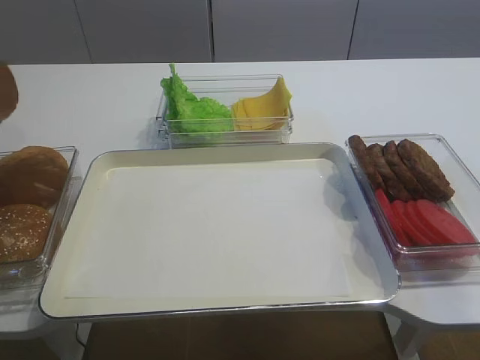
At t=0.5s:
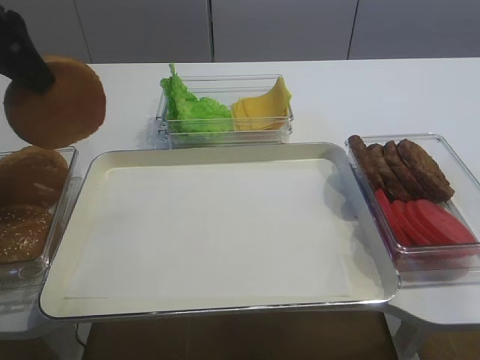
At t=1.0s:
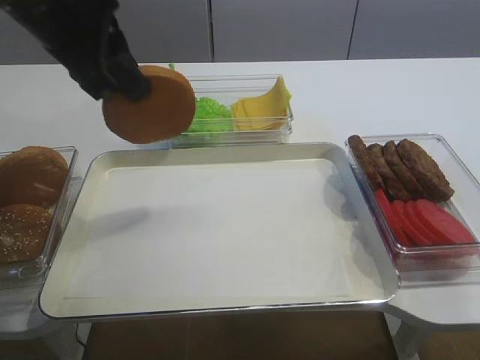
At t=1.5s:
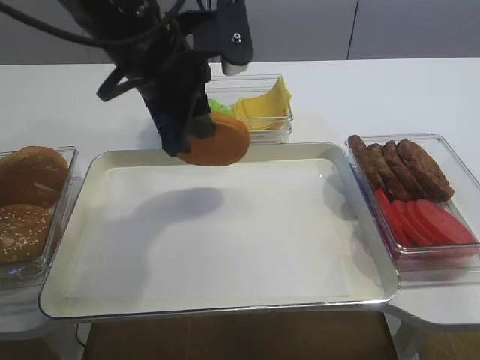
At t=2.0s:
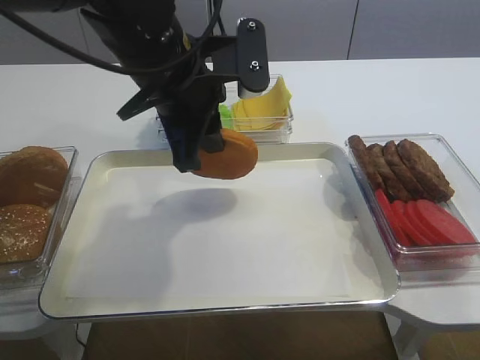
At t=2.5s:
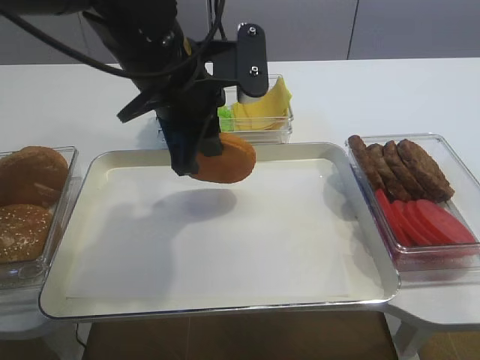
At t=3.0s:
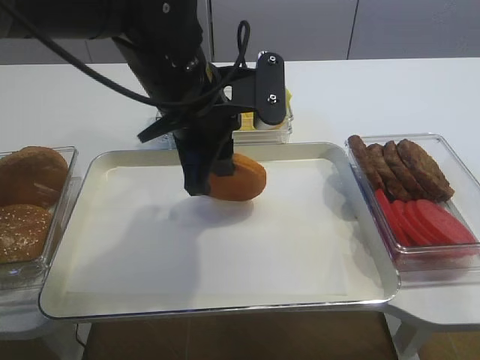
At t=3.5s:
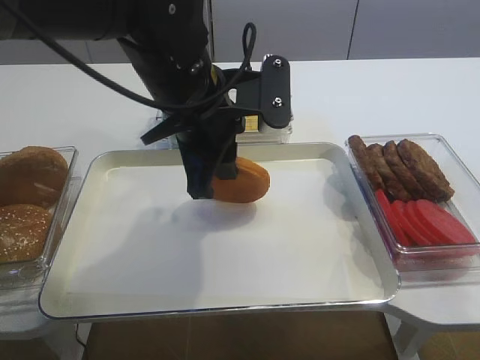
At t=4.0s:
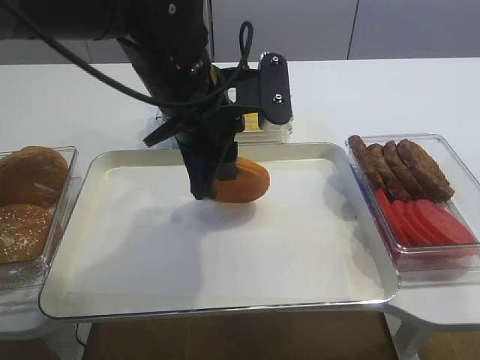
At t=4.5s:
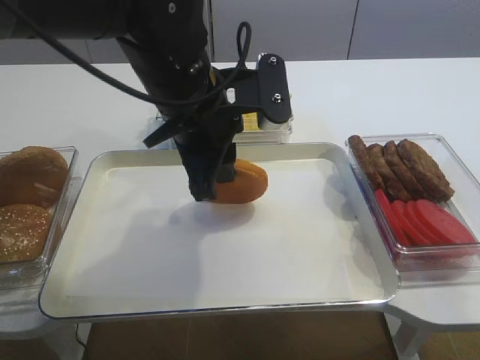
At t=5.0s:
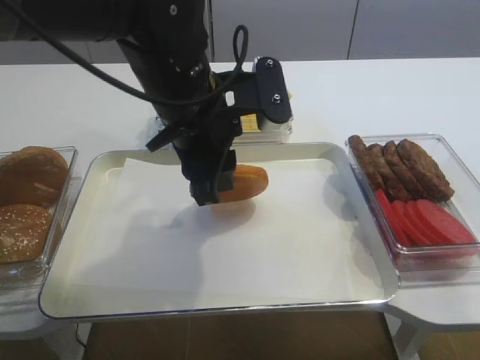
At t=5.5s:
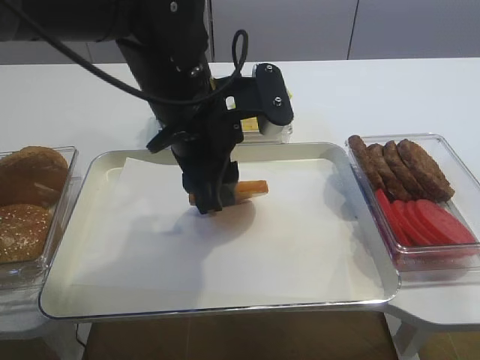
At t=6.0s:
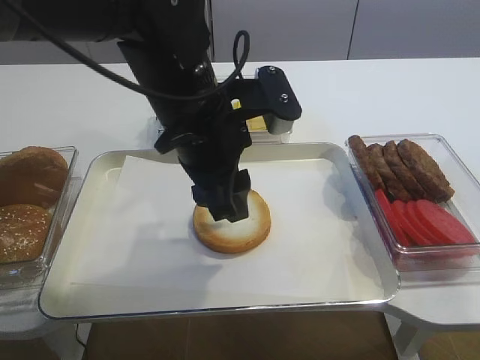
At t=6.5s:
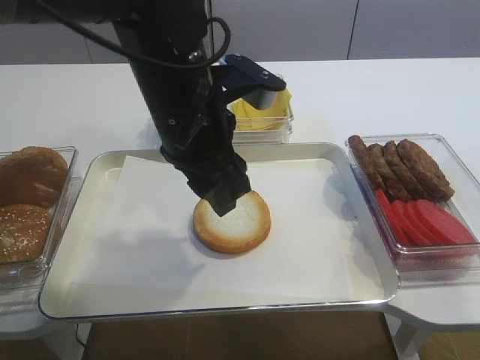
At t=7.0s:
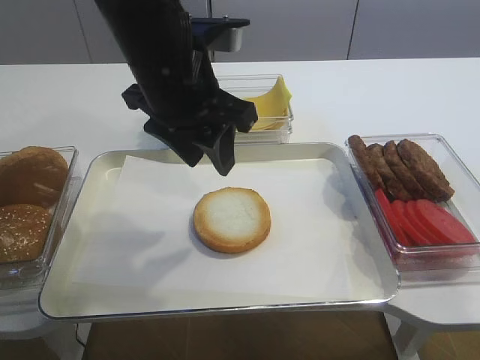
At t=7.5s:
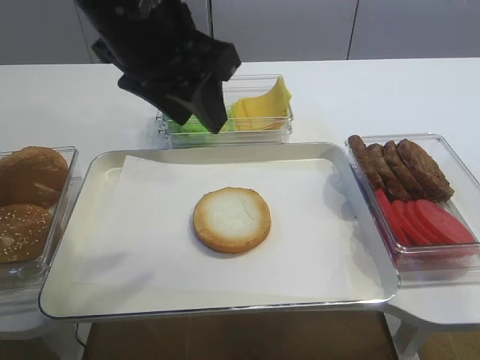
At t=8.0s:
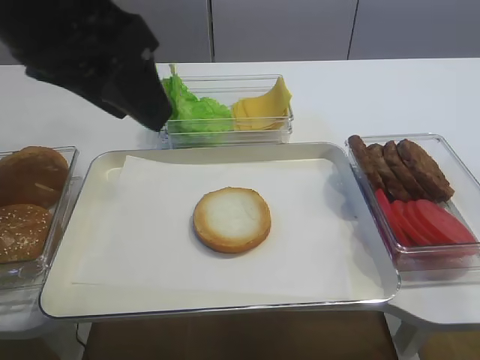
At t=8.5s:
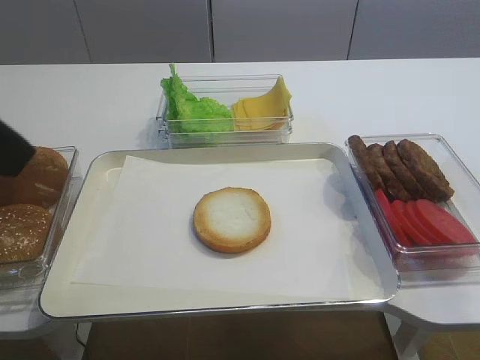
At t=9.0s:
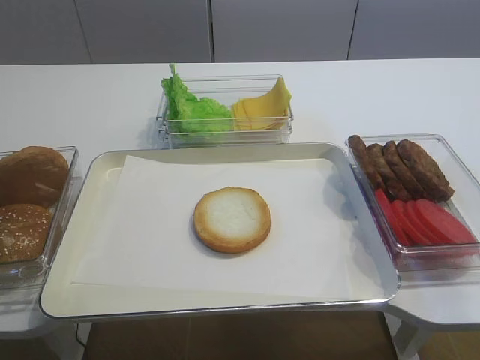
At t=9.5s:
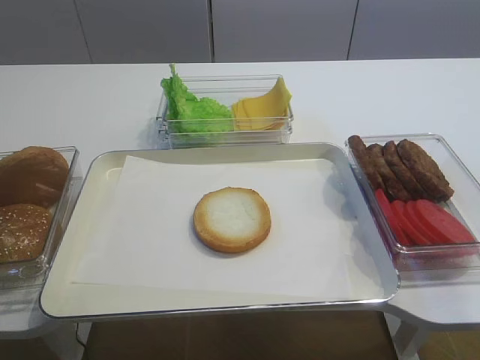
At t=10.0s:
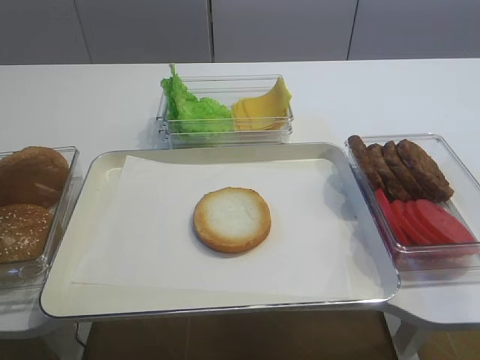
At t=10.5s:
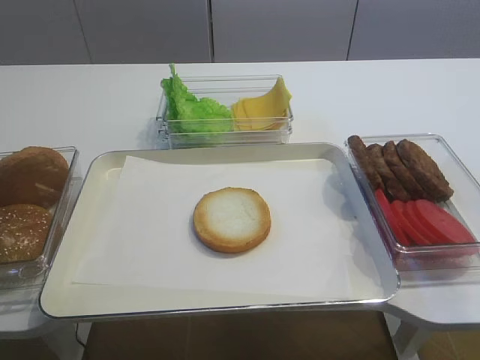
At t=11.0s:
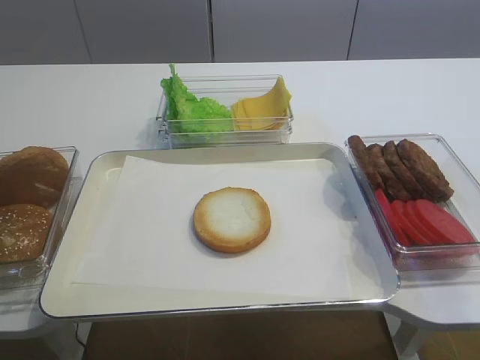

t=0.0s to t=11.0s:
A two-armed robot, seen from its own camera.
Step, t=0.0s to t=6.0s: Place the bread slice on the tray with the left gripper.
t=0.0s to t=2.0s: The left gripper heads to the right, covering approximately 25 cm.
t=2.0s to t=3.5s: The grippers make only small movements.
t=3.5s to t=5.5s: The left gripper opens.
t=5.5s to t=7.5s: The left gripper shifts some 10 cm upward.
t=7.5s to t=9.0s: The left gripper moves backward and to the left, about 30 cm.

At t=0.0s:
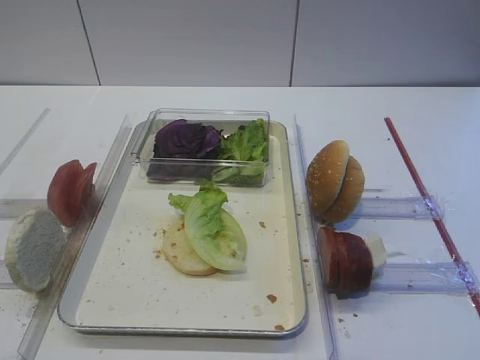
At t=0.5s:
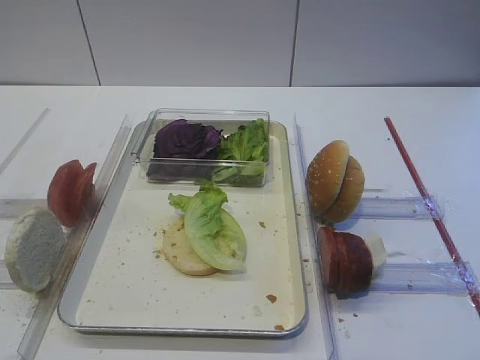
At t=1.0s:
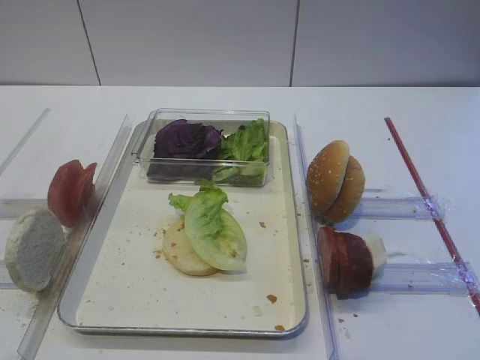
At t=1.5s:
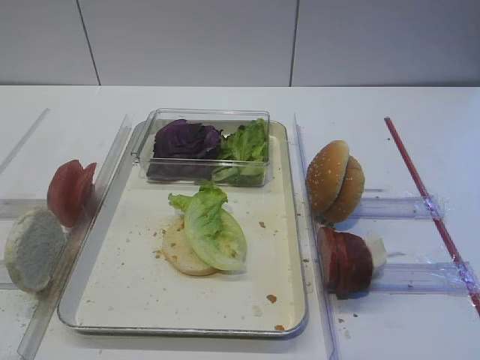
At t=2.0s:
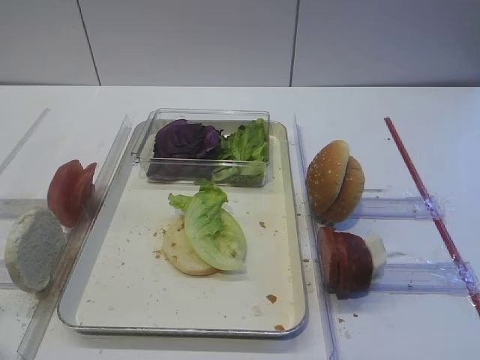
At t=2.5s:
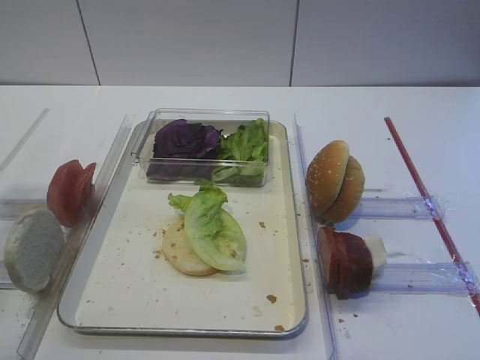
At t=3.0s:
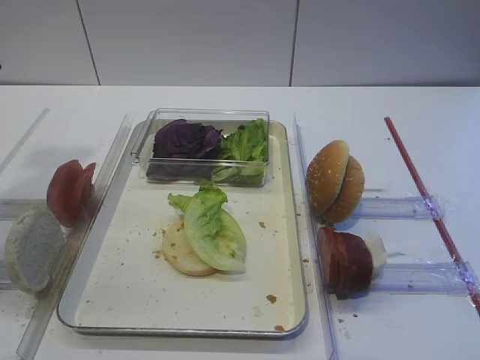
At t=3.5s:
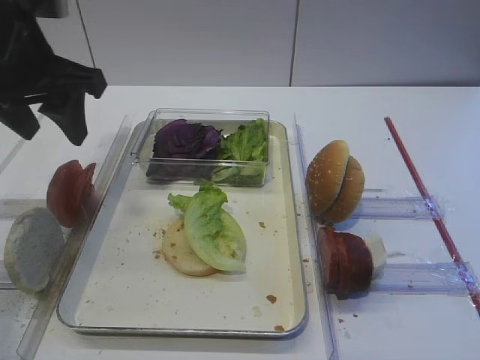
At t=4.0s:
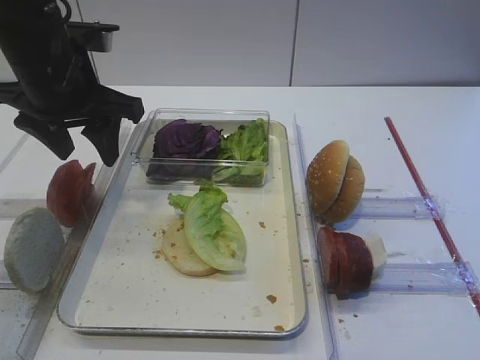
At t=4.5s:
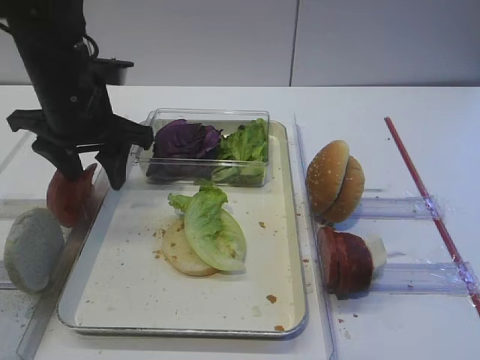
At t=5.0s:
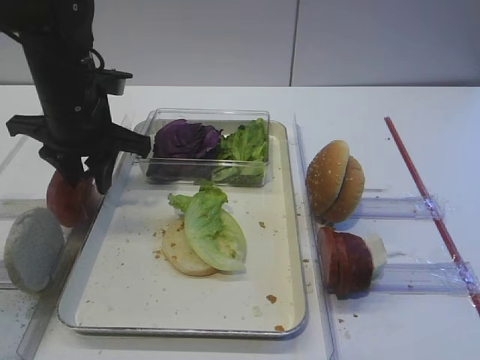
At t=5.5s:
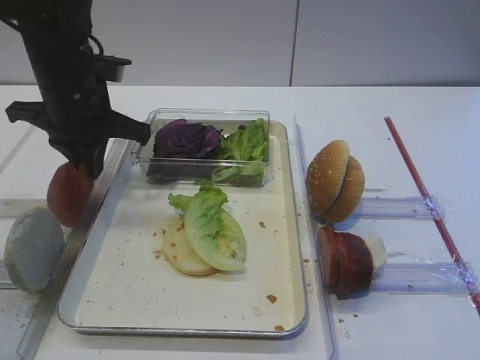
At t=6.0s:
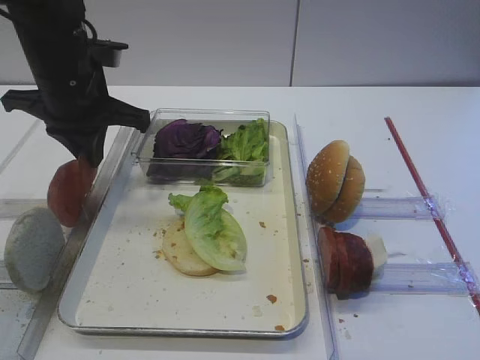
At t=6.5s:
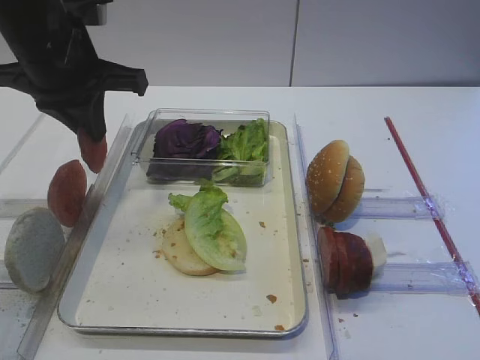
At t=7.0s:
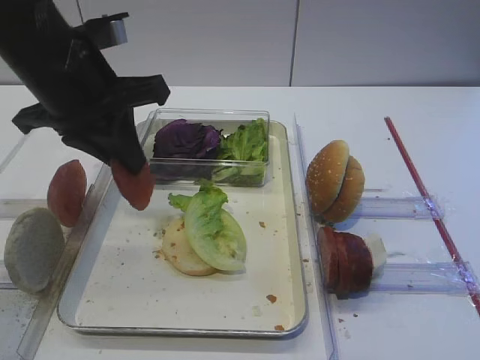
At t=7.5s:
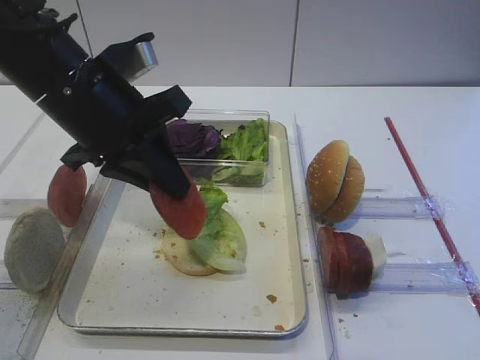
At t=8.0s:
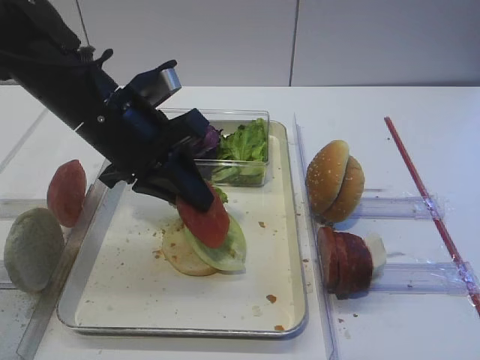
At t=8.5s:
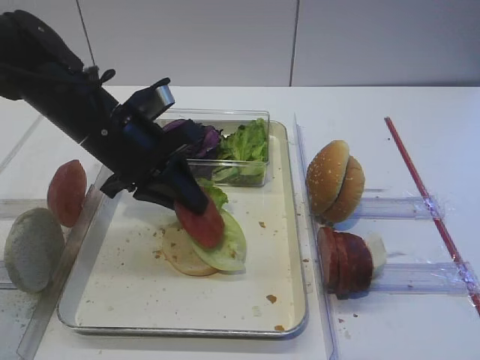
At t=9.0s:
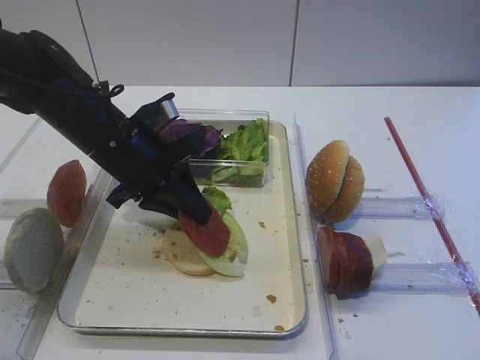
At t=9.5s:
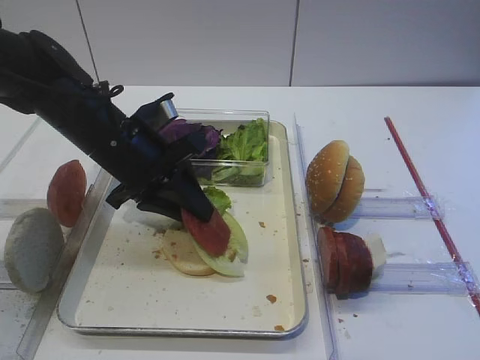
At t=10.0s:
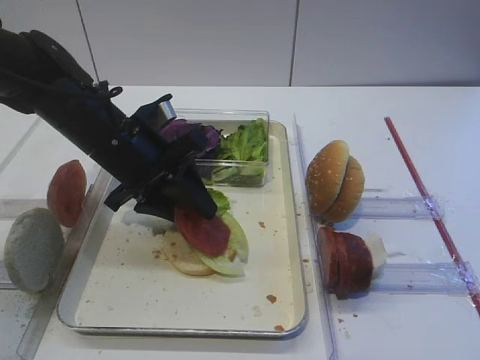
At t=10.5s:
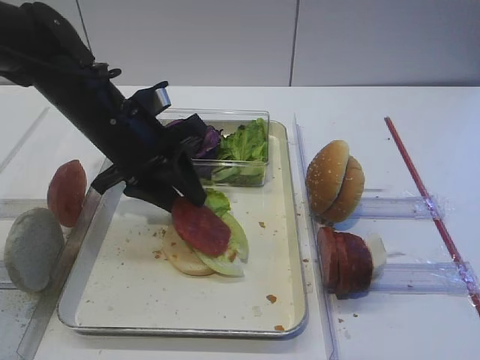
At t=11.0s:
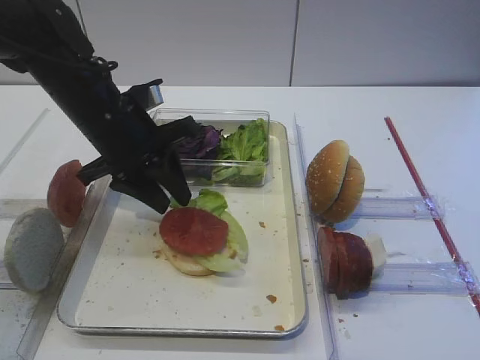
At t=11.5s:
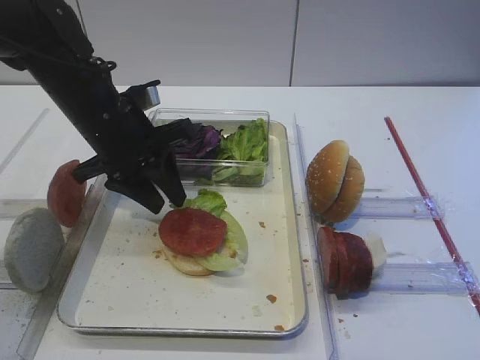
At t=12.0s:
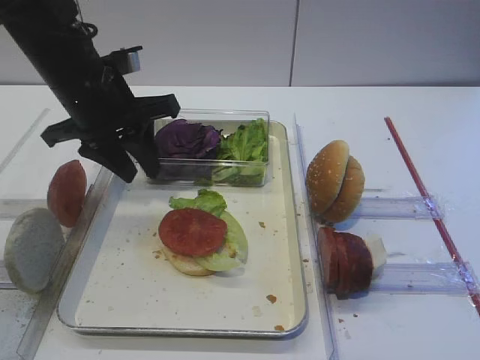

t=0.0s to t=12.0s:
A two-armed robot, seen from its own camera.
Step, t=0.0s to t=6.0s: Pick up the tomato slice with the left gripper.
Step, t=6.5s to t=11.0s: Place the tomato slice on the lettuce leaf with the left gripper.
t=2.0s to t=4.0s: The left gripper travels forward by some 30 cm.
t=4.0s to t=6.0s: The left gripper closes up.
t=6.0s to t=8.0s: The left gripper travels backward and to the right by some 10 cm.
t=8.0s to t=10.0s: The left gripper changes place by roughly 5 cm, and opens up.
t=10.0s to t=12.0s: The left gripper moves upward, some 5 cm.

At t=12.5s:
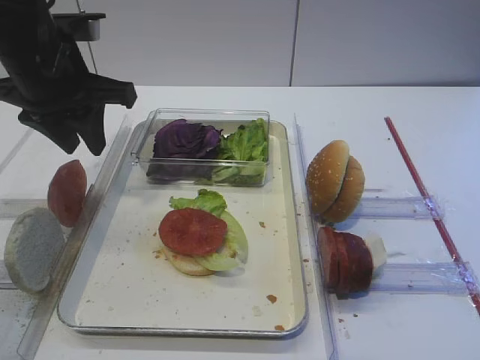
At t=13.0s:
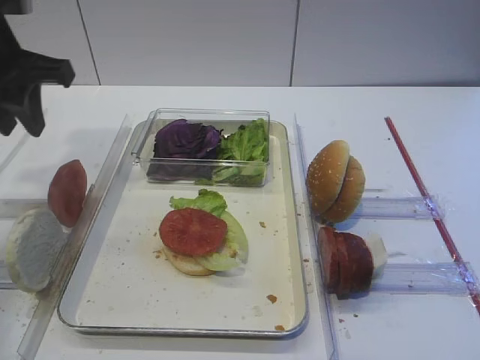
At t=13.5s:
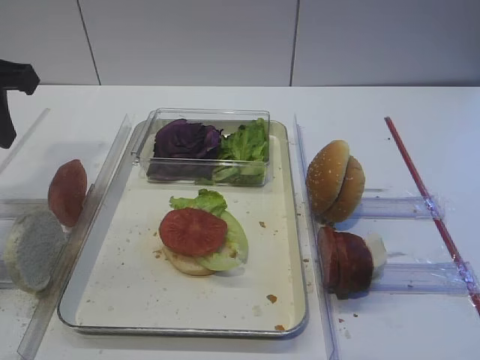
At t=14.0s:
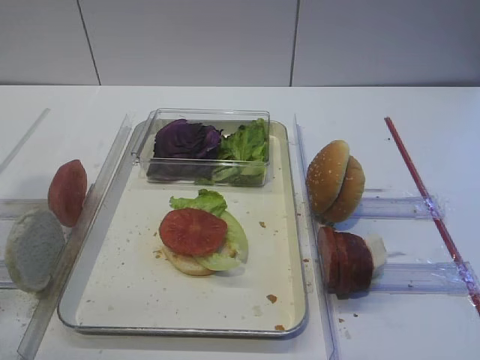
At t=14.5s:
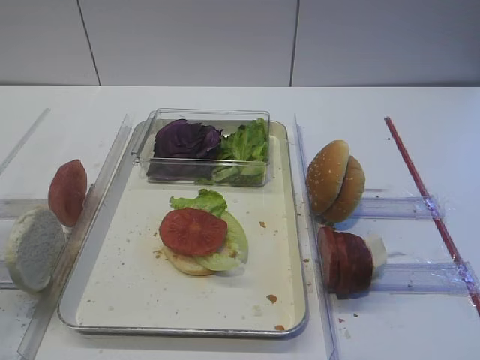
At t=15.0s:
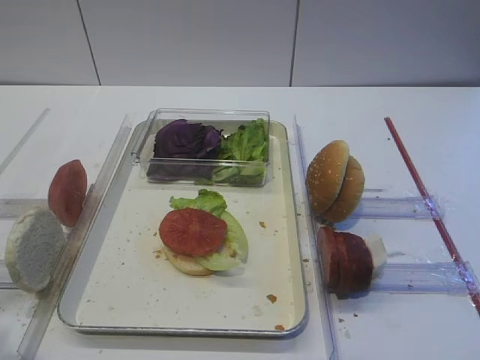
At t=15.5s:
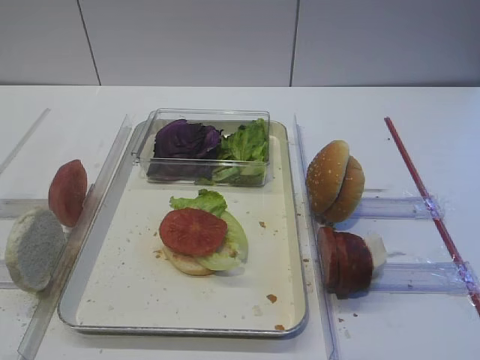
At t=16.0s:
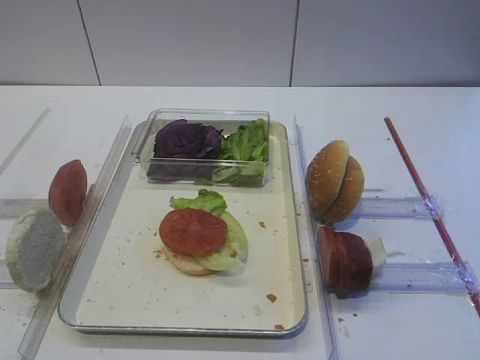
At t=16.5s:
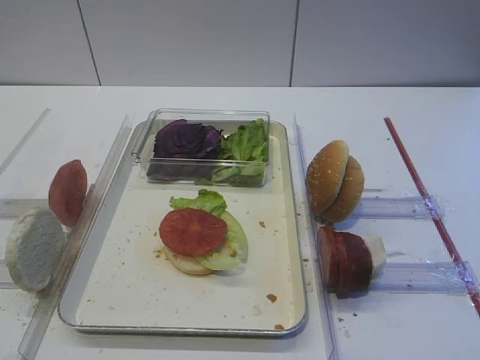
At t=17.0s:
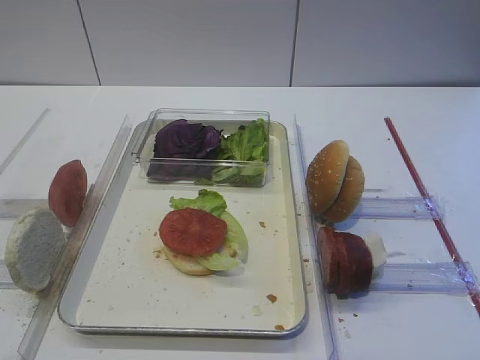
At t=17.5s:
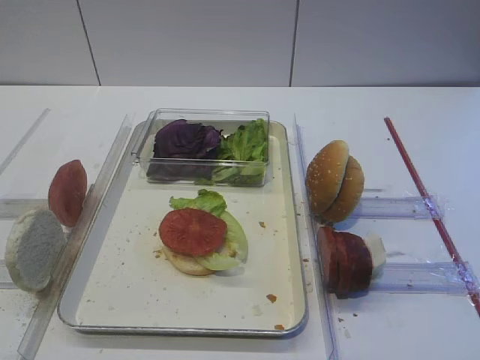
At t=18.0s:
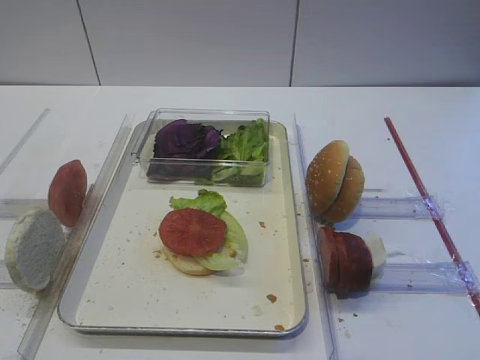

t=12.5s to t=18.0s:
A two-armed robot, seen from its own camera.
t=12.5s to t=14.5s: The left gripper goes roughly 20 cm backward.
t=14.5s to t=16.0s: The left gripper shifts approximately 15 cm backward and downward.
